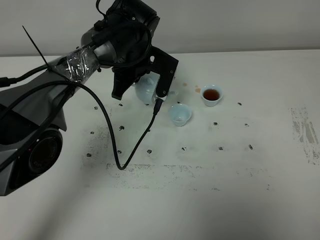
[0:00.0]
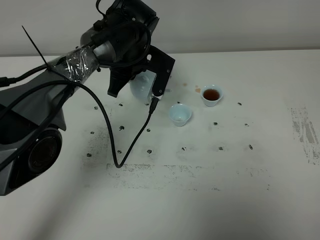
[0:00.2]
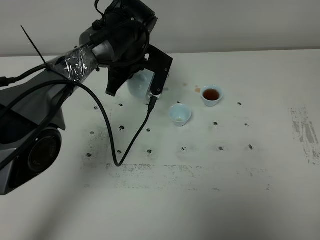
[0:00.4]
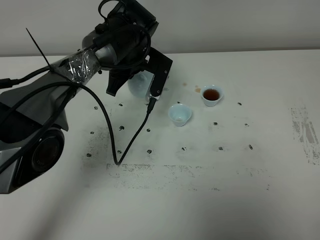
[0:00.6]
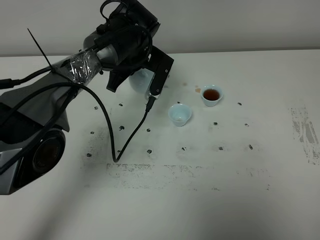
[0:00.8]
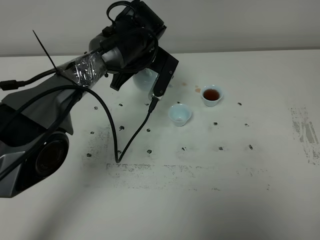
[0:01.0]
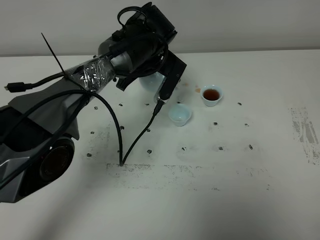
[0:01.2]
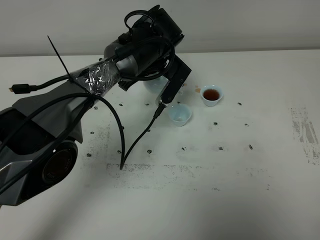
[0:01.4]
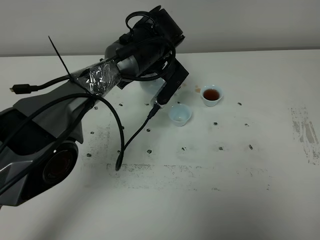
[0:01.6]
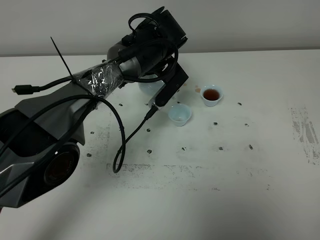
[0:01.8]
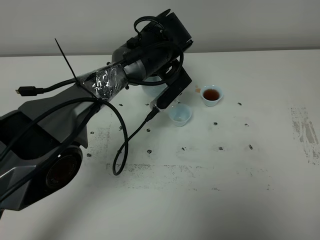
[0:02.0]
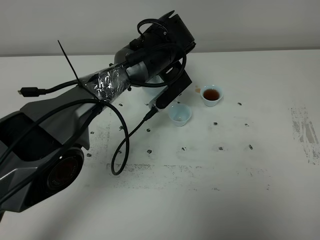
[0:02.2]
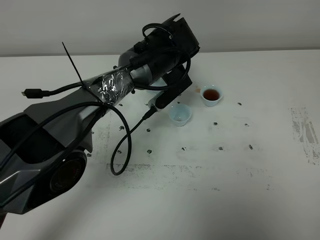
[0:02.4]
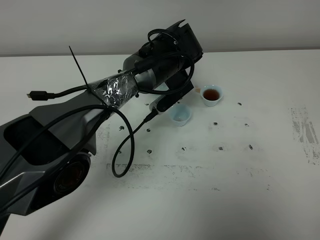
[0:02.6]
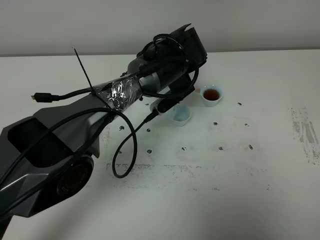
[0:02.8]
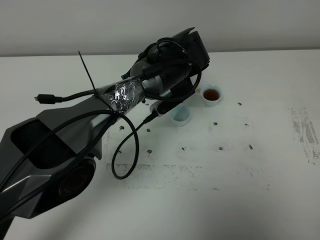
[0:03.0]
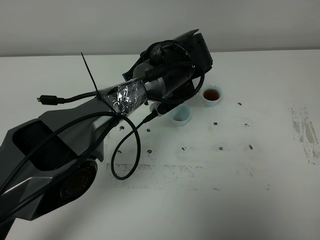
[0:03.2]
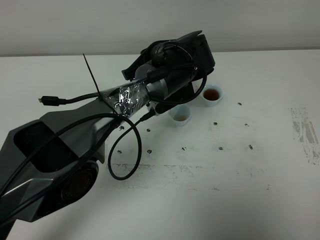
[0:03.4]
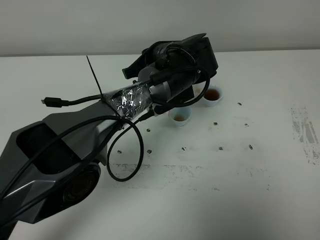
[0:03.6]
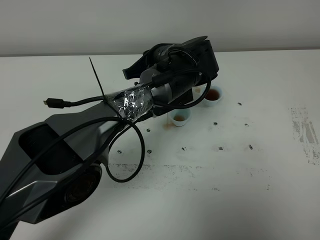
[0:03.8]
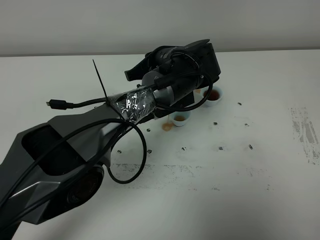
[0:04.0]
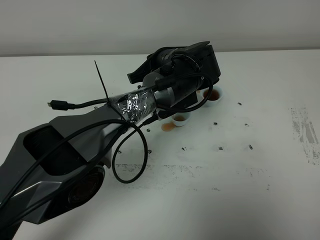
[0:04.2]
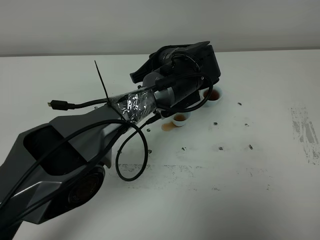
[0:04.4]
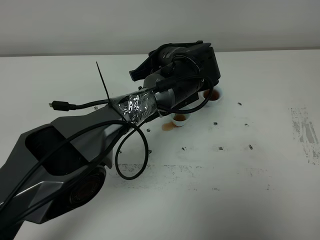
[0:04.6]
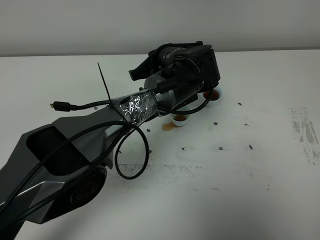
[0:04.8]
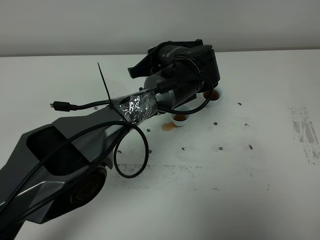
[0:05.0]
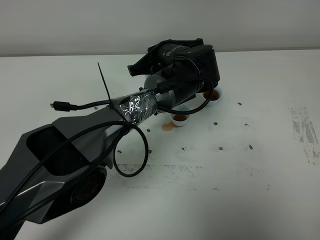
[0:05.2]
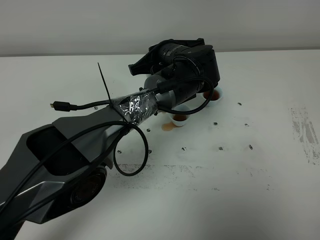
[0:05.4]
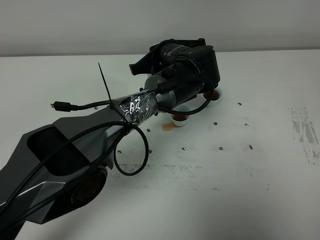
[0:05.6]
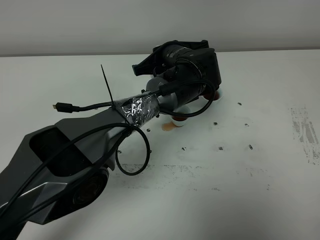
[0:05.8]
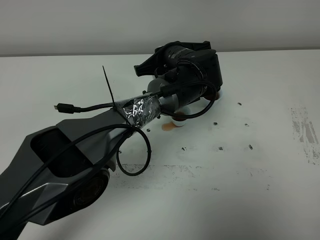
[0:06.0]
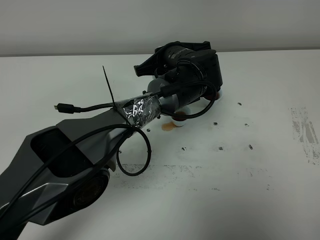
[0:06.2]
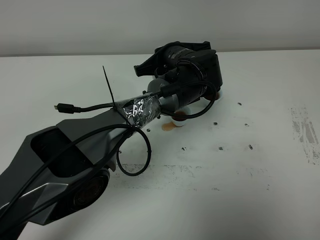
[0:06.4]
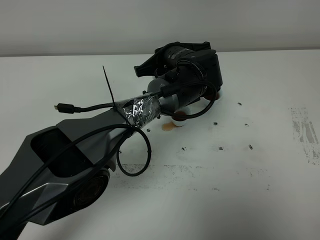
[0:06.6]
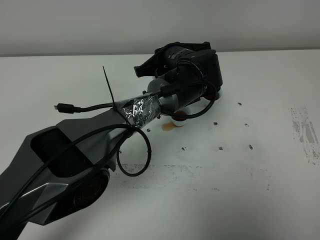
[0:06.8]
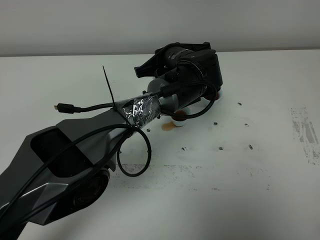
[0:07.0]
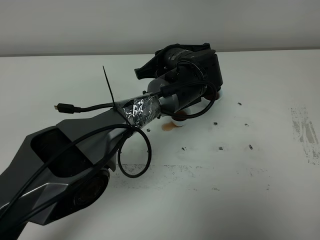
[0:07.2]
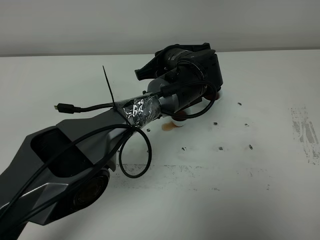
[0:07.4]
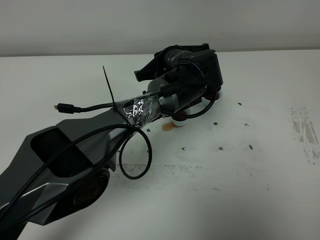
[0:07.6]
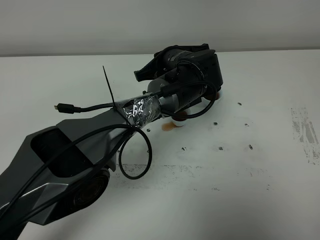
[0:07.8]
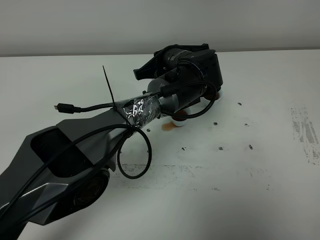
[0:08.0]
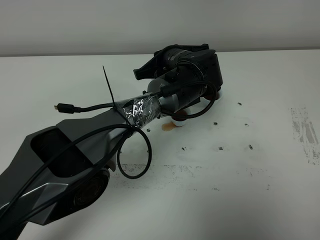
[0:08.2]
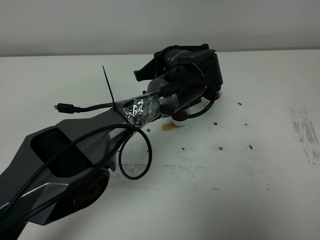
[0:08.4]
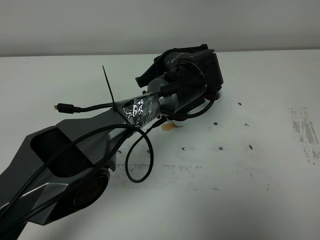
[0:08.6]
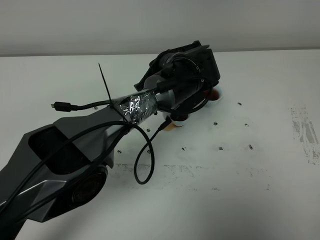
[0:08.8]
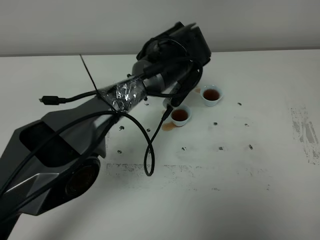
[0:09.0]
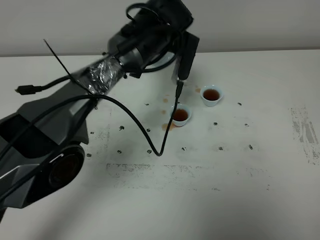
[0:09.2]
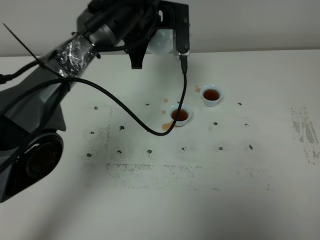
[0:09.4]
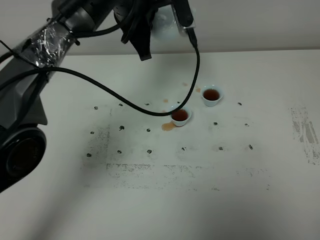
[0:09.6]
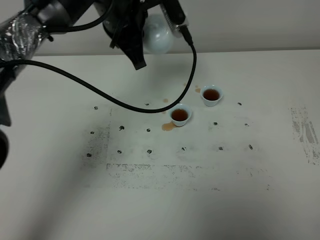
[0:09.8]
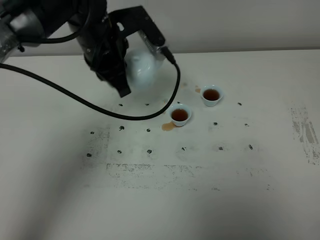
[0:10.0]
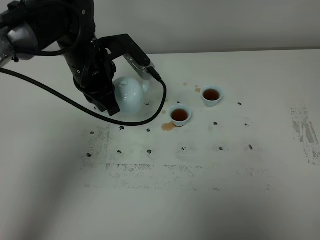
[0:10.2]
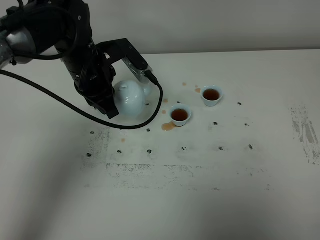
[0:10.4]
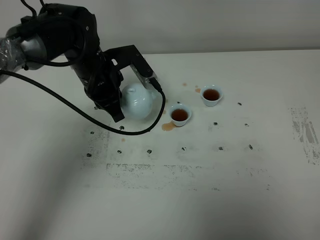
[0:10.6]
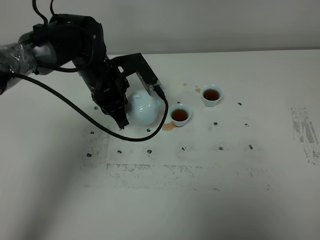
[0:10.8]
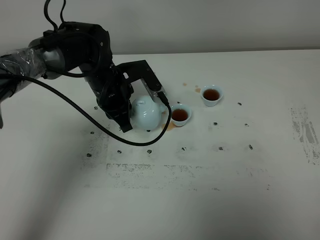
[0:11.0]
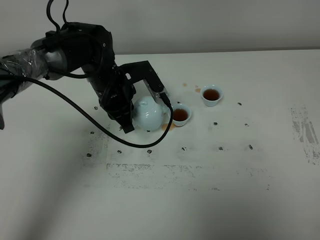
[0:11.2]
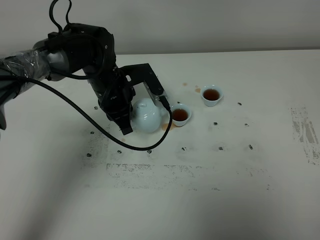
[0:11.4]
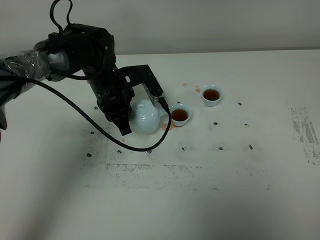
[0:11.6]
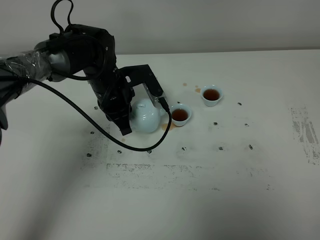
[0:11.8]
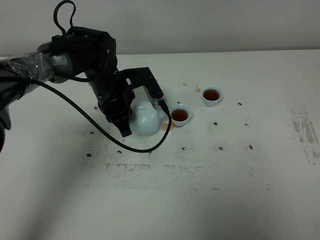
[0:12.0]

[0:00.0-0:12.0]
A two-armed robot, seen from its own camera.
Task of the whole recording: grasp the blue porcelain teapot and pour the tea into the two blue porcelain teacups one by one, put the blue porcelain teapot back in its original place.
Step, 0:00.0 to 0:09.0: Pour tea into the teacup with the left gripper.
0:03.0 to 0:06.0: There are only small adjustments of the grippers.
0:06.0 to 0:07.6: Both grippers stay about where they are.
0:09.0 to 0:10.4: The left gripper travels to the left by about 15 cm.
0:10.4 to 0:12.0: The left gripper moves downward, roughly 5 cm.

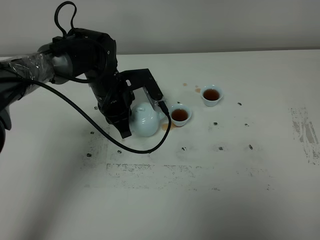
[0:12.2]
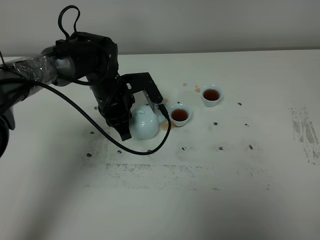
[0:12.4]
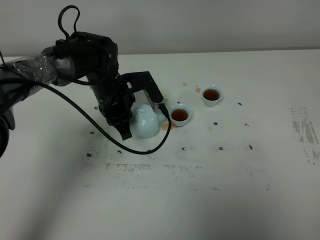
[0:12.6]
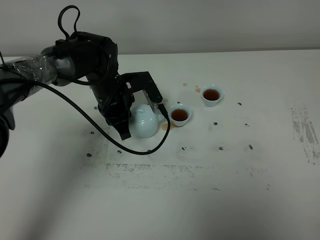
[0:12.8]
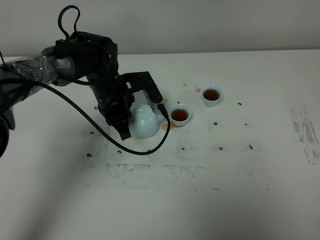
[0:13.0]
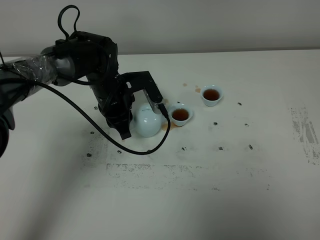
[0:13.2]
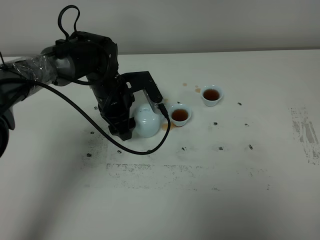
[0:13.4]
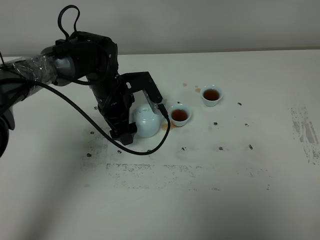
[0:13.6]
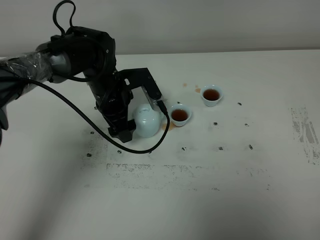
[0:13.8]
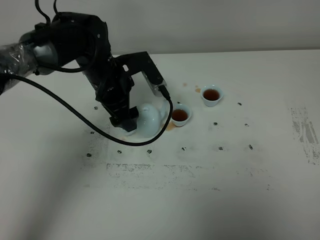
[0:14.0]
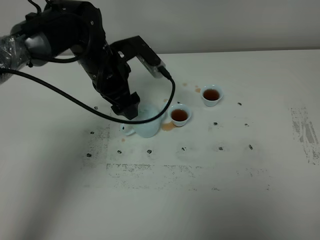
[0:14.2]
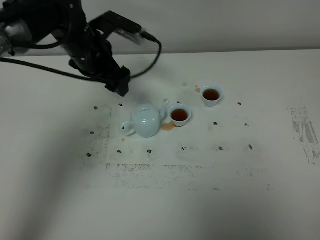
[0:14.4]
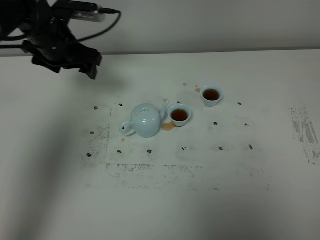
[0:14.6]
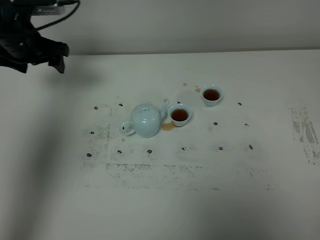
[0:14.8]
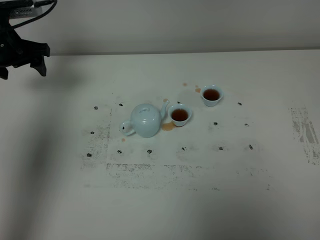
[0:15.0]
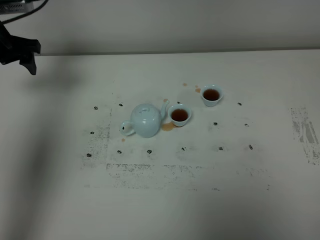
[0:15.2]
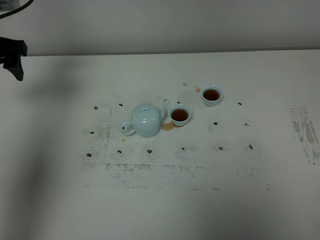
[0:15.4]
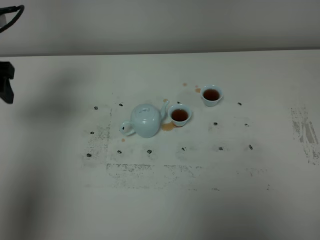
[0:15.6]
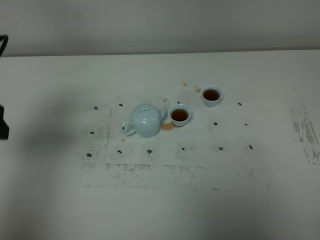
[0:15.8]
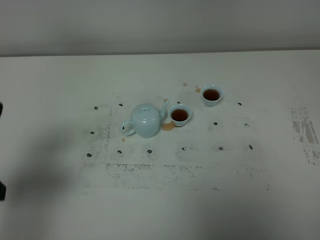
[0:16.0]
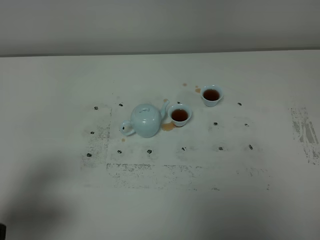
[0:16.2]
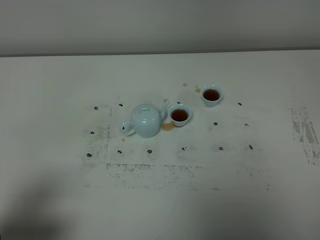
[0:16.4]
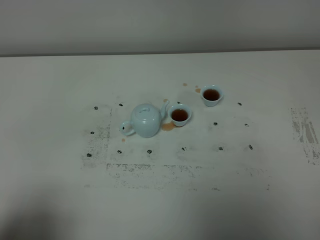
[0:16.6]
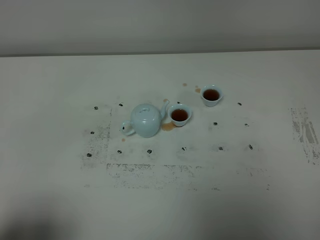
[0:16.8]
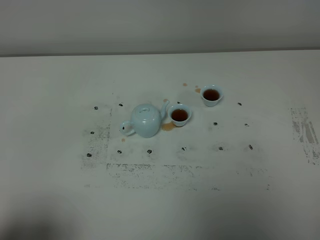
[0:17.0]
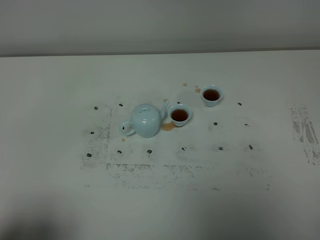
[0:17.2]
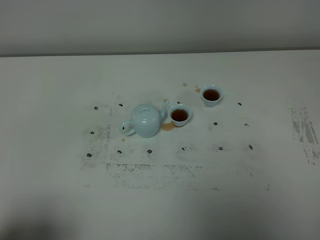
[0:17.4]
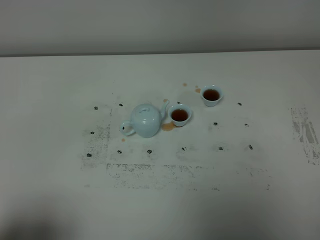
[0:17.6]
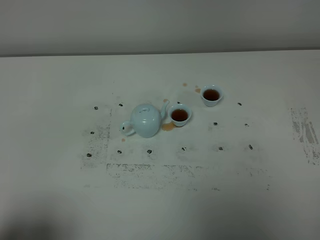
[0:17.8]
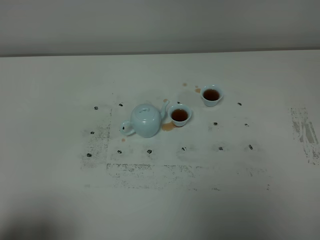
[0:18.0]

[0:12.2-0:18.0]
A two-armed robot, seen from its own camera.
Task of the whole recording: grasp the blue porcelain teapot and pour the tea into the two blue porcelain teacups one by one, put the blue porcelain teapot back in its original place.
0:12.2 to 0:13.6: The left gripper opens its fingers.
0:13.6 to 0:15.0: The left gripper heads to the left and upward, covering approximately 25 cm.
0:15.0 to 0:16.6: The left gripper travels backward by about 40 cm.

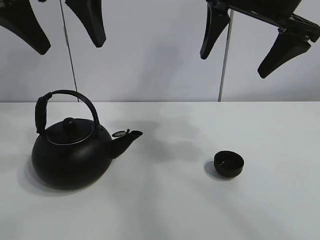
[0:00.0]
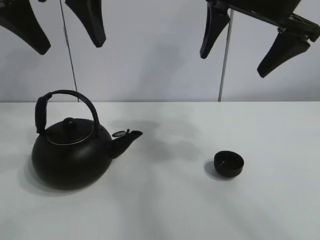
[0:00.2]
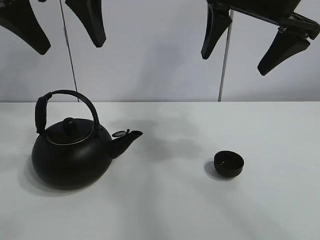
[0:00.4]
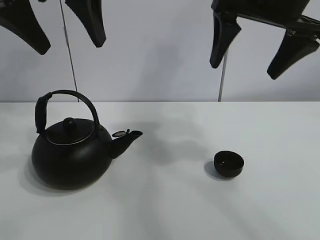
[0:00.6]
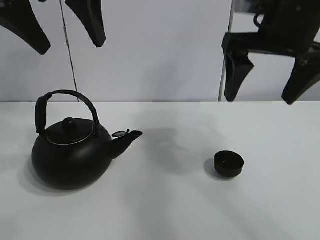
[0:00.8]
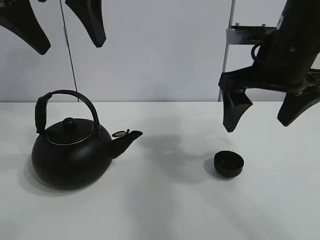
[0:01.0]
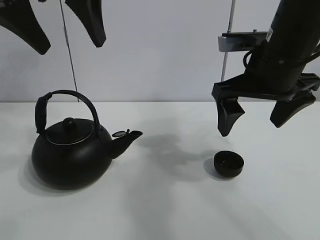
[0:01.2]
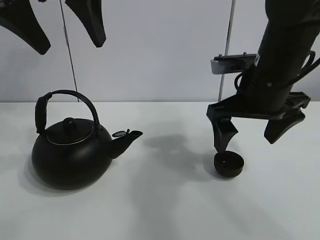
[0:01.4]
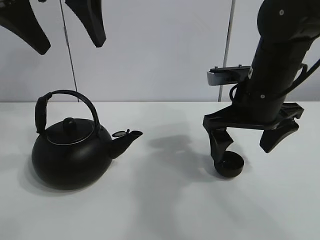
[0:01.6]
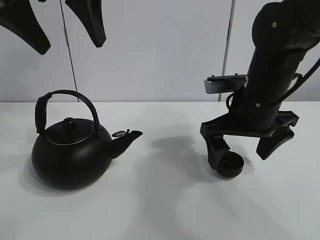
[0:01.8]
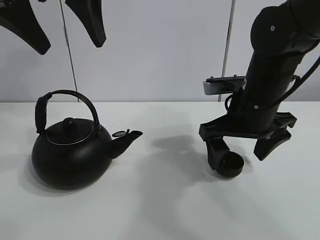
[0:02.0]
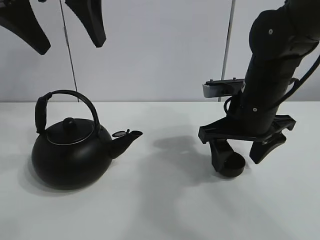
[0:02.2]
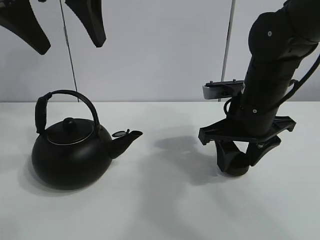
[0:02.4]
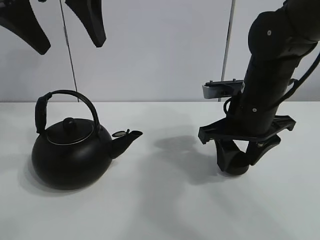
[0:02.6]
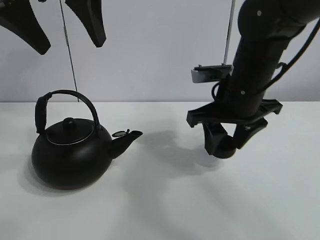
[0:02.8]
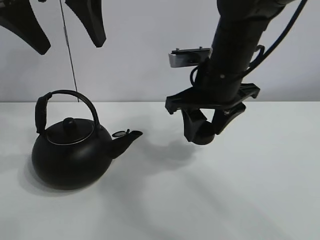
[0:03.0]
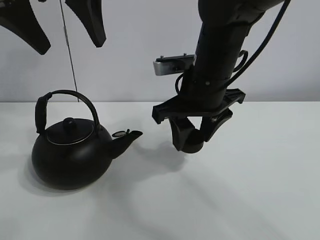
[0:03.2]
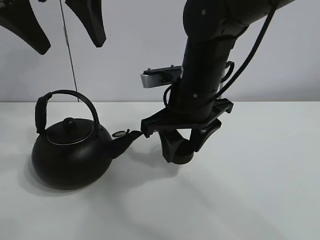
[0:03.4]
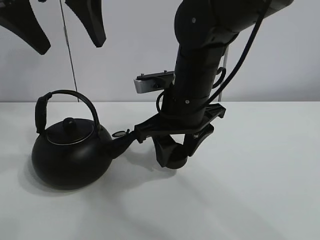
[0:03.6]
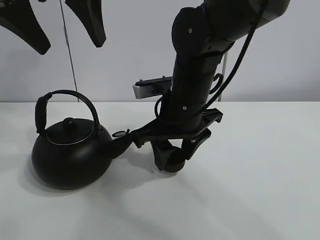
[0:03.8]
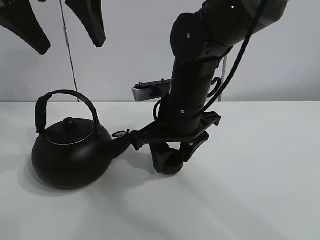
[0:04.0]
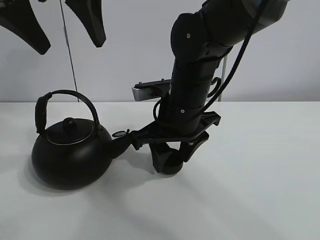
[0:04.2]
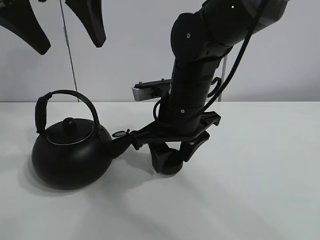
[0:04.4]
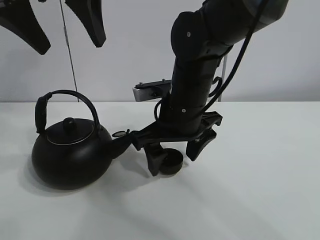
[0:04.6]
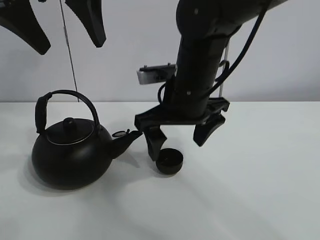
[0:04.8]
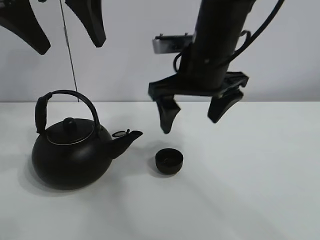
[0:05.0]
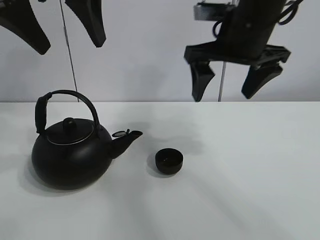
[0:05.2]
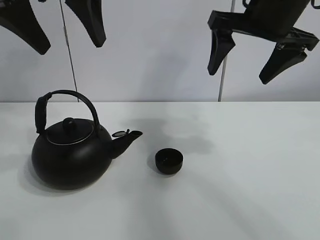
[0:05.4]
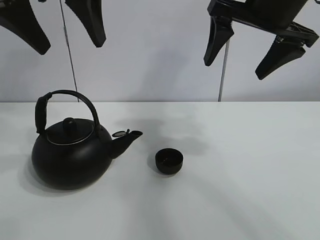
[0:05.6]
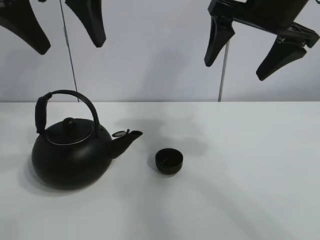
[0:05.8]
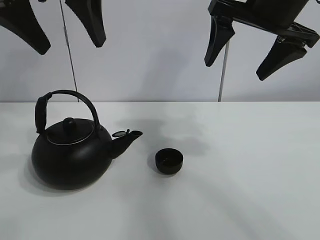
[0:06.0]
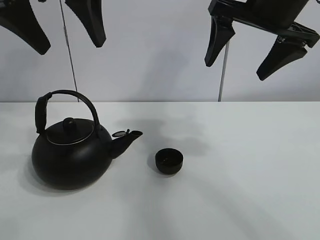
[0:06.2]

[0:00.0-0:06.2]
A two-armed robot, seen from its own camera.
Task of the whole recording: pour tea into the teacup.
Step, 0:00.0 to 0:02.4: Pick up the teacup with the right gripper.
Step, 0:02.6 to 0:04.6: Place the teacup in the center of view with the right gripper.
0:01.6 to 0:03.2: The right gripper moves to the left, approximately 10 cm, and closes up.
0:03.2 to 0:04.6: The right gripper changes place by about 5 cm, and opens its fingers.
0:04.6 to 0:06.2: The right gripper moves upward and to the right, roughly 20 cm, and opens.
